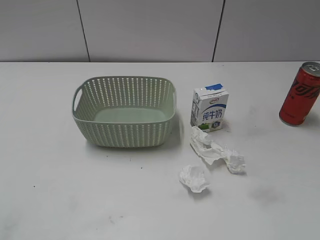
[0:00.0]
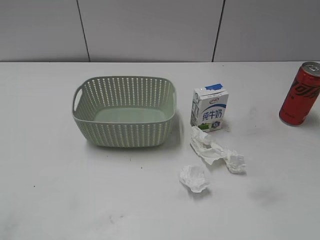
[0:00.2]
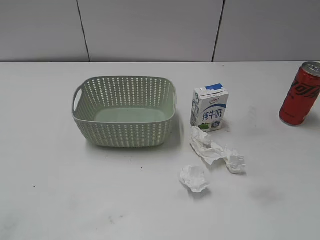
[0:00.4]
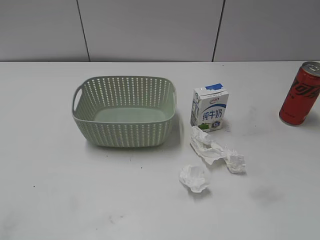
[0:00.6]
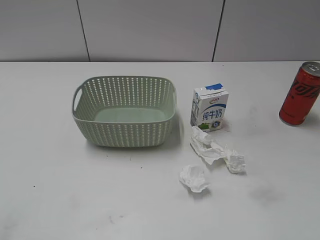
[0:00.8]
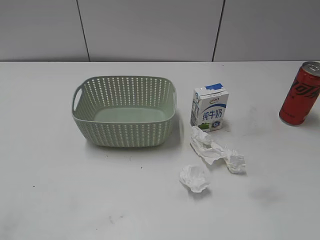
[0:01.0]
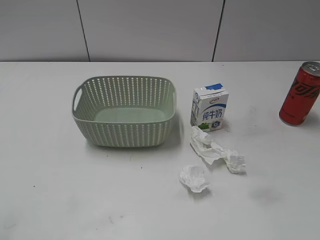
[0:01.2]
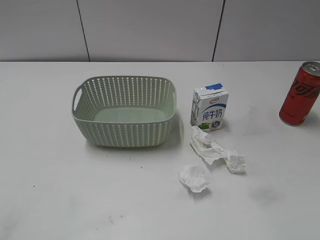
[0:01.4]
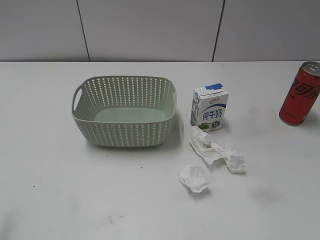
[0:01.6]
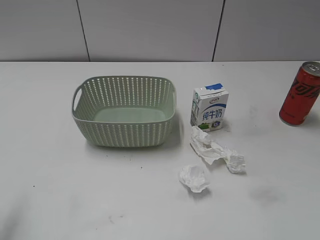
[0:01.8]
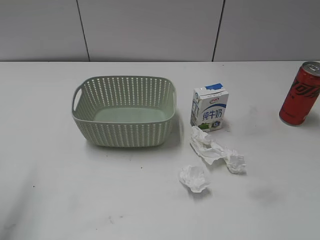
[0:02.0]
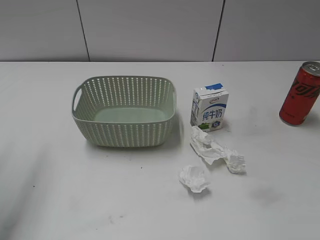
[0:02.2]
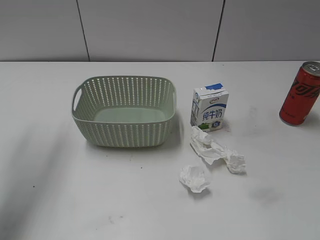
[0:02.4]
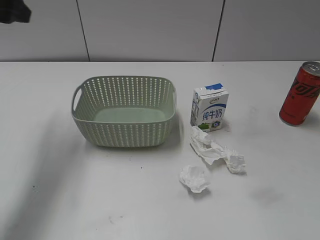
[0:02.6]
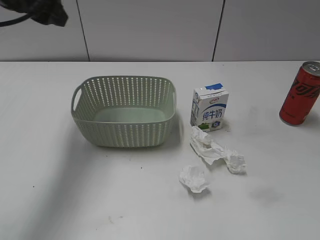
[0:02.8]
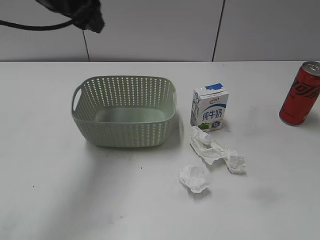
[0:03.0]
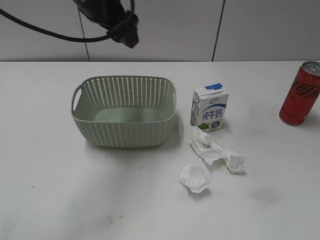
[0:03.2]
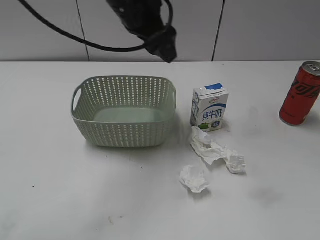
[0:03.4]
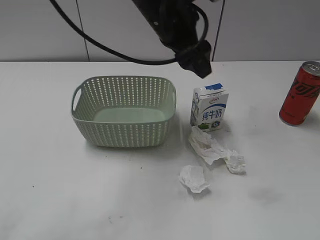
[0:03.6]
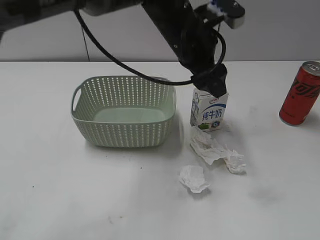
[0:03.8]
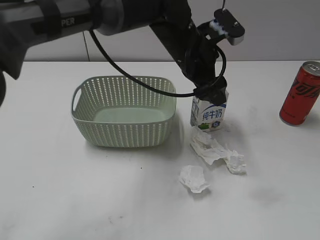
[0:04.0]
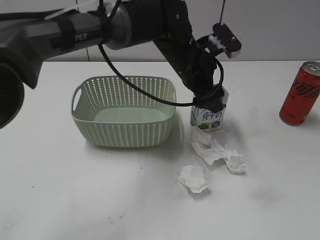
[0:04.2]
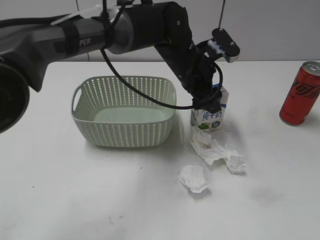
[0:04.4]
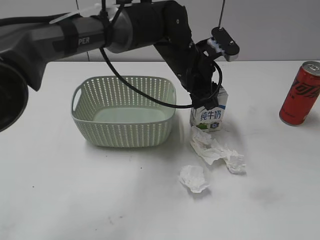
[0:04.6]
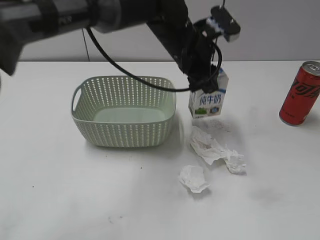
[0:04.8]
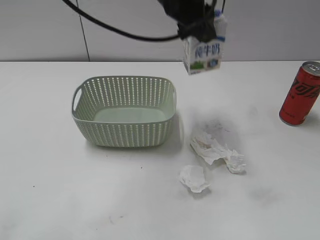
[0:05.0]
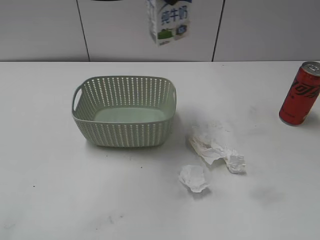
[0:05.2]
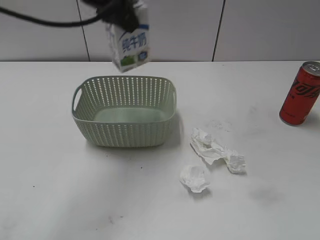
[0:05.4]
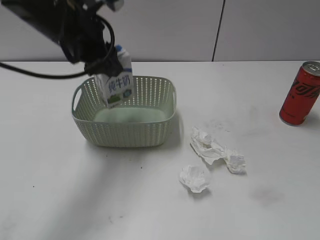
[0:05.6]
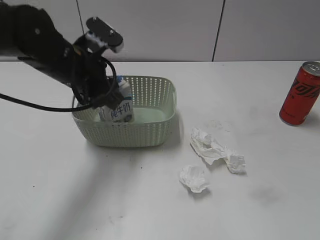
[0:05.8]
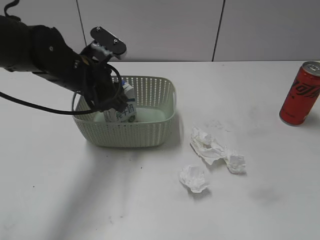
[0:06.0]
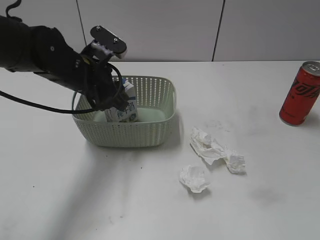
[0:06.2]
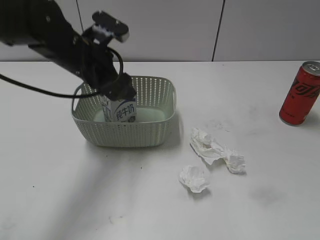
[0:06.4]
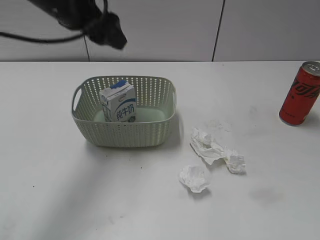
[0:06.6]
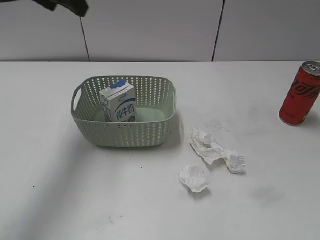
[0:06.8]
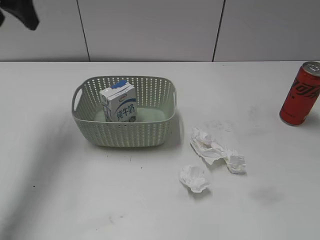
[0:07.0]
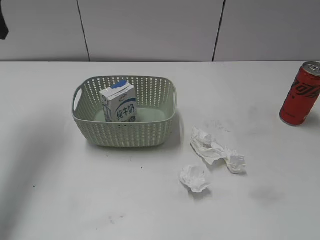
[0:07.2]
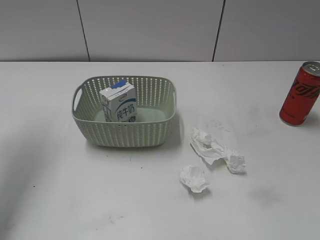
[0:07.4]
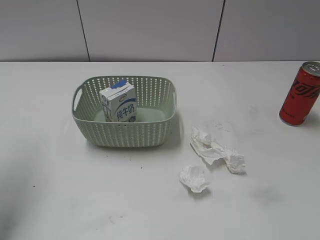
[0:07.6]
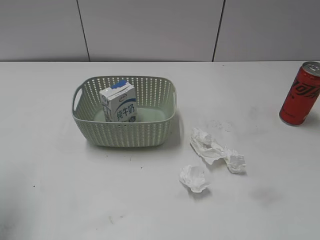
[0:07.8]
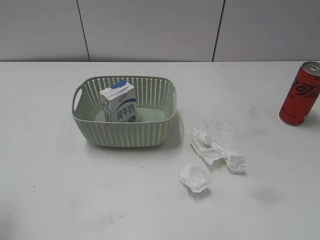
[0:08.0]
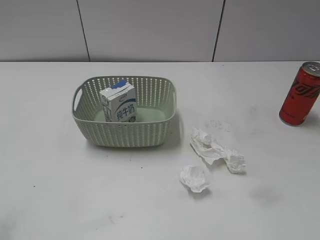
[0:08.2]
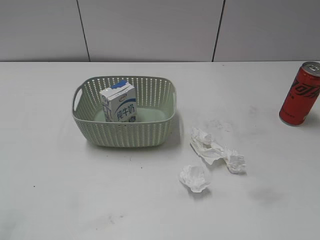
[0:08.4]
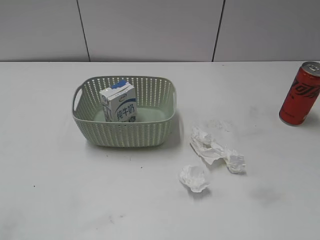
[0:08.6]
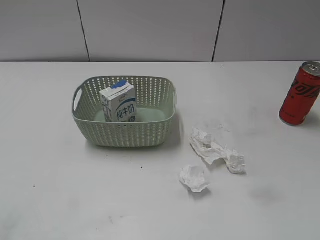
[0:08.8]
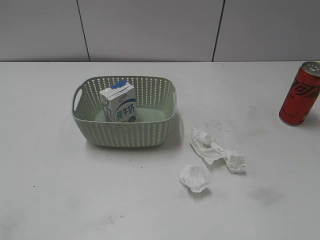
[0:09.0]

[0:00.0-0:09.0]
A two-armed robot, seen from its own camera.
Step, 0:02.6 to 0:04.6: Grasp the milk with left gripper.
Step, 0:04.8 to 0:06.6: Place the milk in the basket with left gripper.
0:01.6 to 0:03.0: The left gripper heads forward and to the right, covering some 35 cm.
0:03.0 to 0:04.4: The left gripper travels to the right and downward by about 25 cm.
0:04.4 to 0:06.0: The left gripper goes roughly 20 cm to the left, moves about 20 cm upward and comes back, and closes its fingers.
0:06.0 to 0:07.6: The left gripper shifts about 25 cm to the left and upward, and opens its fingers.
0:07.6 to 0:09.0: The left gripper shifts about 25 cm backward.

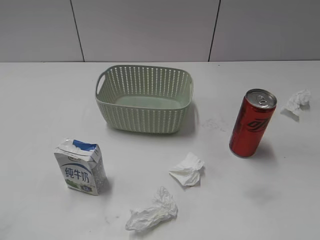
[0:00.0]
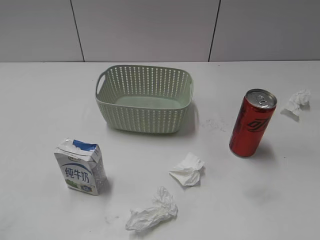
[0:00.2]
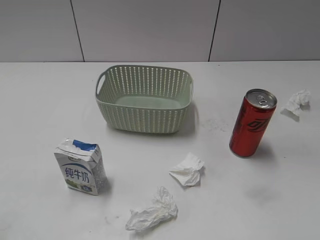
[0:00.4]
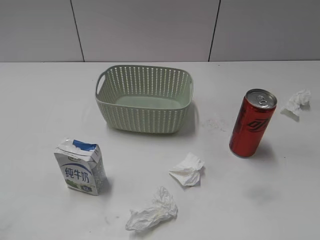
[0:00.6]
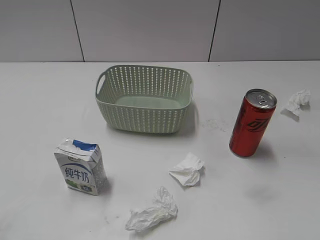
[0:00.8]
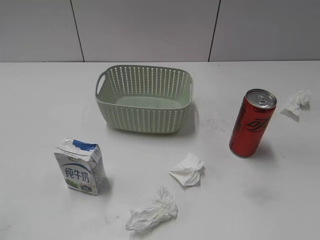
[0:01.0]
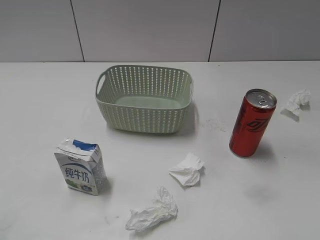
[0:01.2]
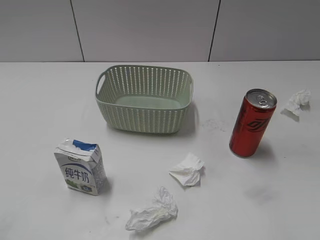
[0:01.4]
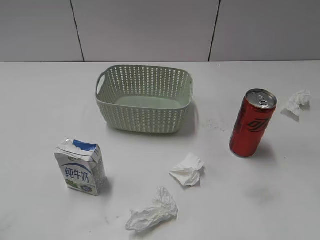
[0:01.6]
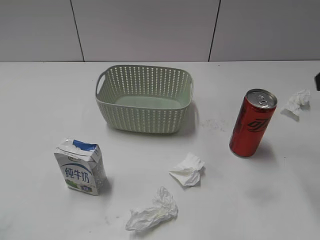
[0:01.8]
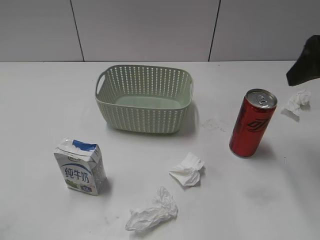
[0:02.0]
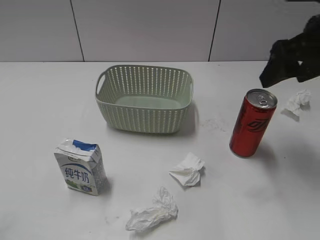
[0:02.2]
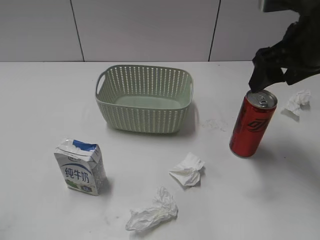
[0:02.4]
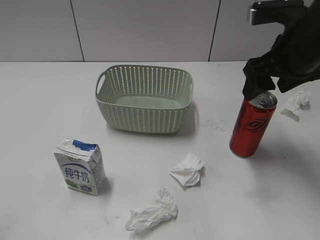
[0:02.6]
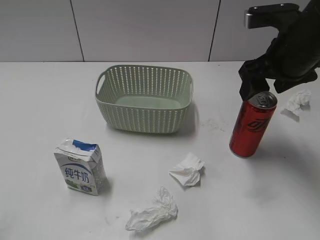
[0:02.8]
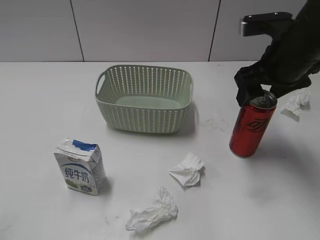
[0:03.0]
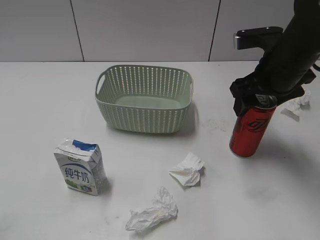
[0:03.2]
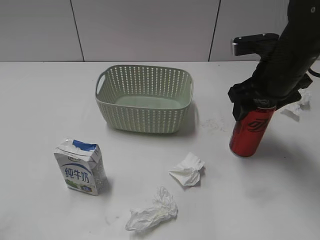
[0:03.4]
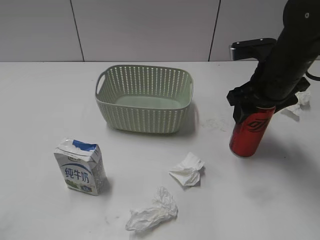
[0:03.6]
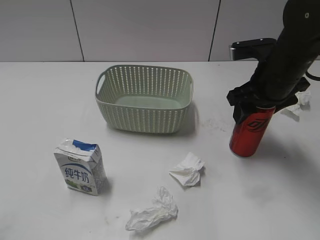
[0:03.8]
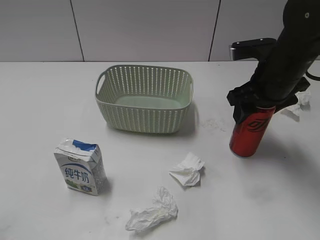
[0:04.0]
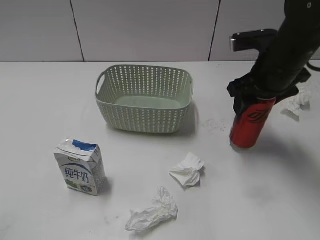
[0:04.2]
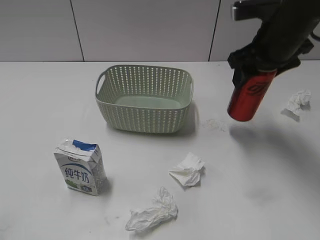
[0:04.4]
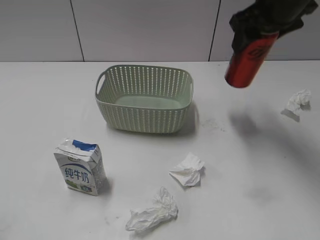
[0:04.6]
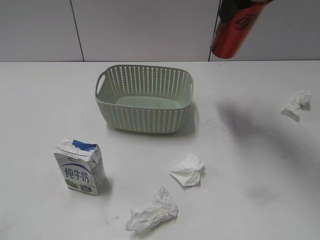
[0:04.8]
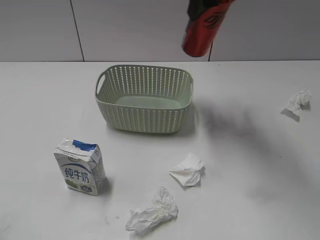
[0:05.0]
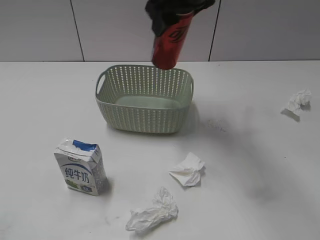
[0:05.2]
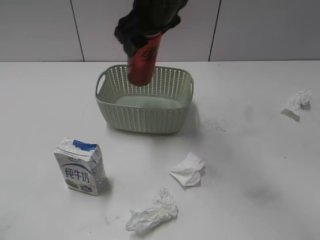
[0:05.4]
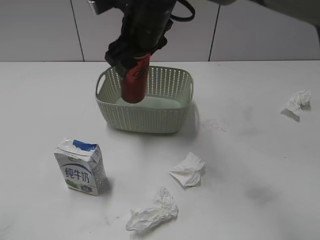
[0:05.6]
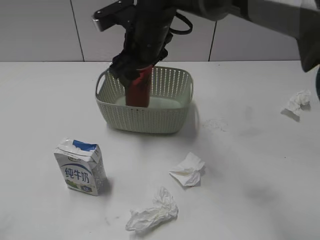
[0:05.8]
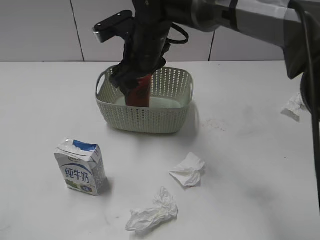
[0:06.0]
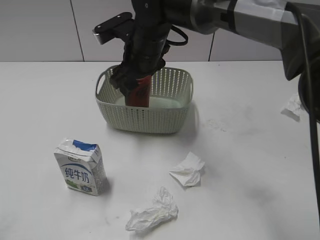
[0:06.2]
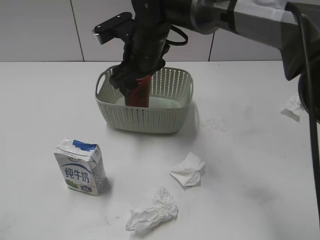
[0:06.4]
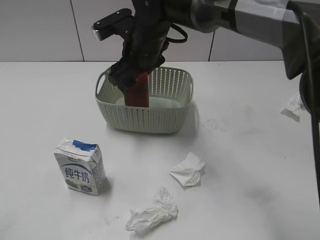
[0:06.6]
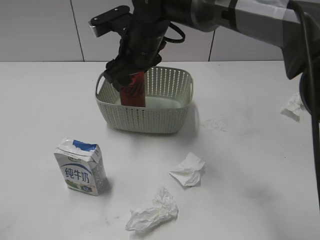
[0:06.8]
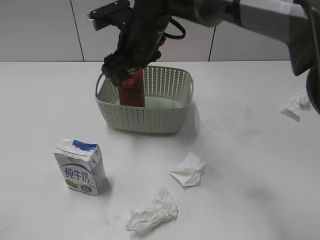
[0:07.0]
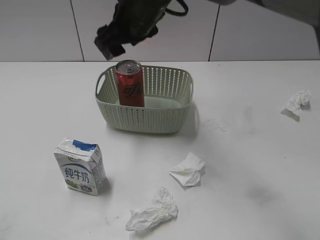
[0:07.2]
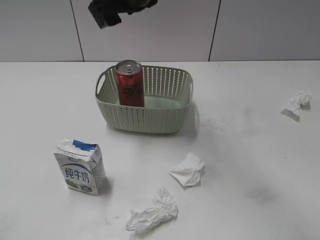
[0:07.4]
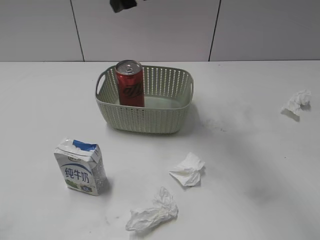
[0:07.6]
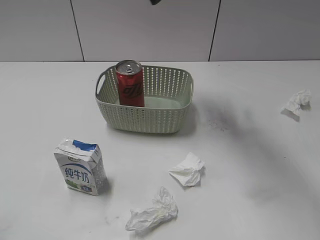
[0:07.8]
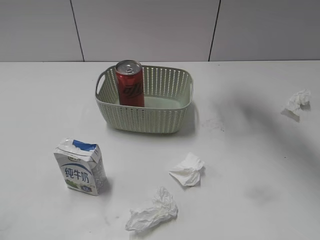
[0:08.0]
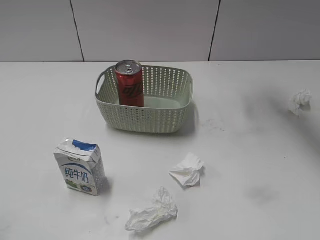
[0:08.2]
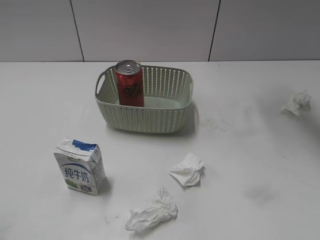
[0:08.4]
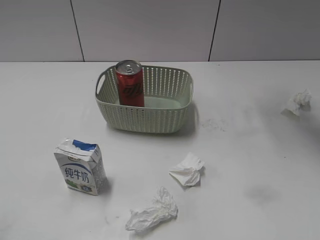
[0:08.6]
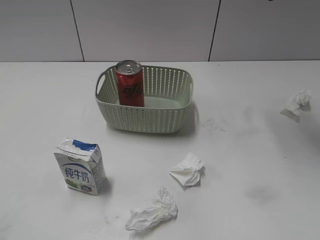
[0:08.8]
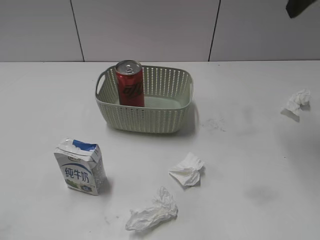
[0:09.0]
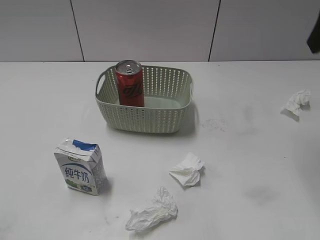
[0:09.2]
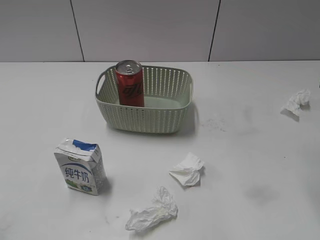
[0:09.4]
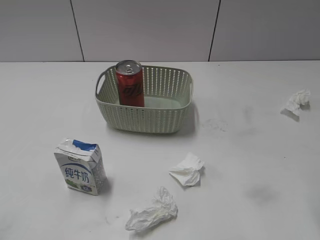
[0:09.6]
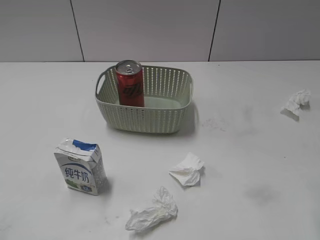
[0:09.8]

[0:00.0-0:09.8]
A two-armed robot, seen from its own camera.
Step, 0:01.8 to 0:03.8: Grasp the cola can with right gripper.
Step, 0:04.0 to 0:07.2: Place the cola can in the basket with right gripper.
0:01.4 to 0:02.8: The right gripper shifts approximately 25 cm forward and to the left.
0:02.8 to 0:04.2: There are only small adjustments of the grippers.
0:04.2 to 0:05.6: The right gripper shifts some 20 cm to the left.
0:05.6 to 0:07.0: The grippers stay close to where they were, moving slightly.
0:07.0 to 0:08.4: The right gripper heads to the right and upward, covering approximately 30 cm.
0:08.4 to 0:09.8: The right gripper heads backward and downward, covering roughly 25 cm.

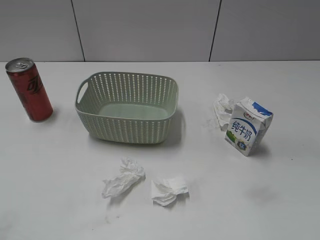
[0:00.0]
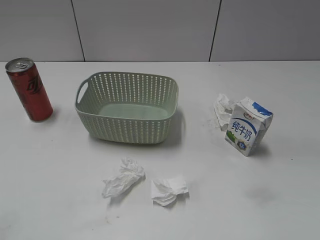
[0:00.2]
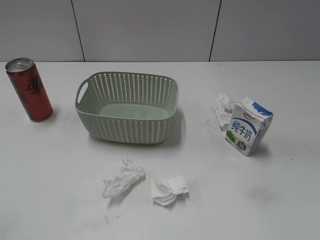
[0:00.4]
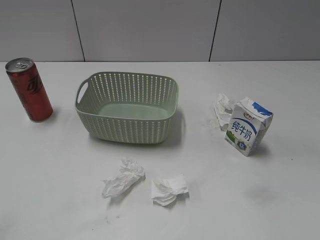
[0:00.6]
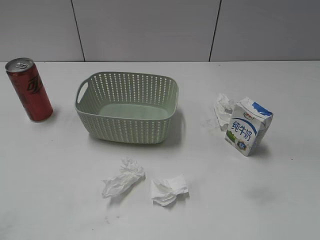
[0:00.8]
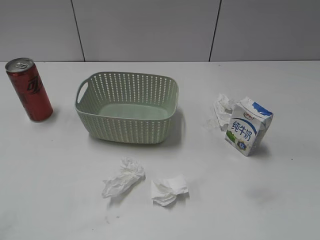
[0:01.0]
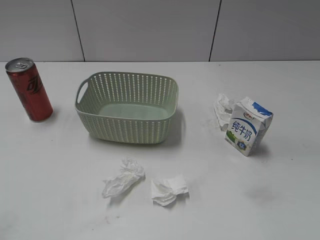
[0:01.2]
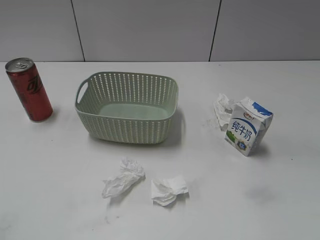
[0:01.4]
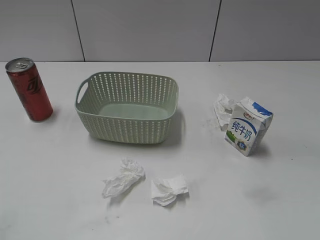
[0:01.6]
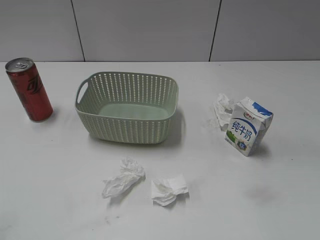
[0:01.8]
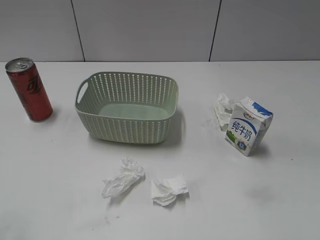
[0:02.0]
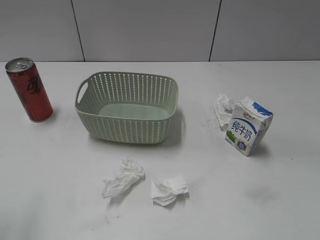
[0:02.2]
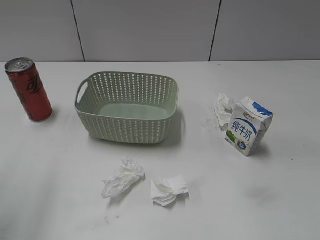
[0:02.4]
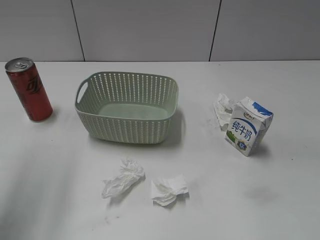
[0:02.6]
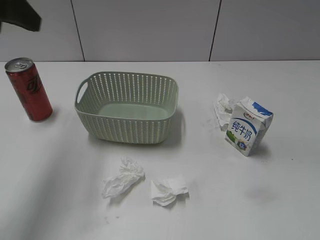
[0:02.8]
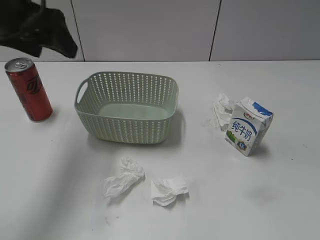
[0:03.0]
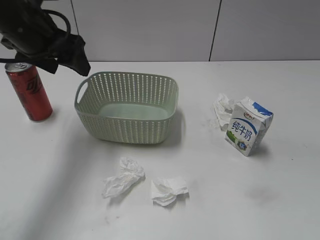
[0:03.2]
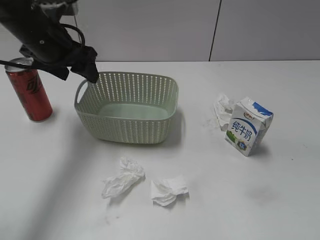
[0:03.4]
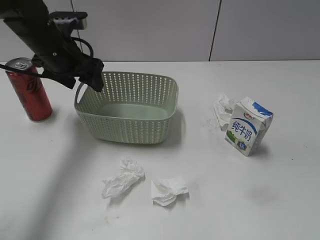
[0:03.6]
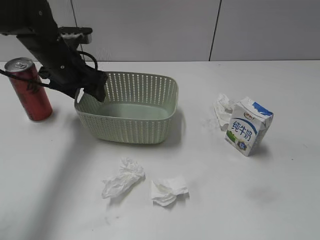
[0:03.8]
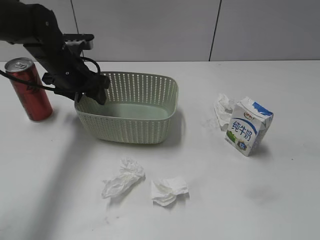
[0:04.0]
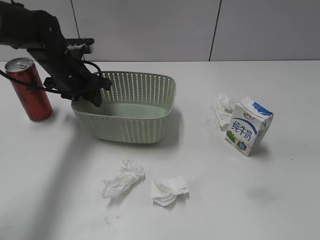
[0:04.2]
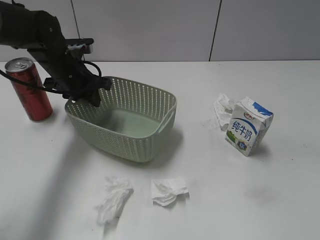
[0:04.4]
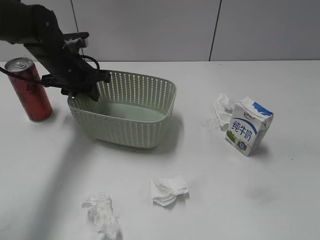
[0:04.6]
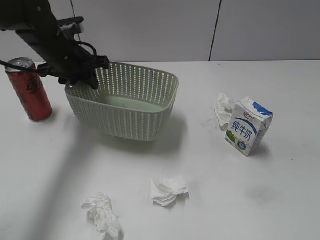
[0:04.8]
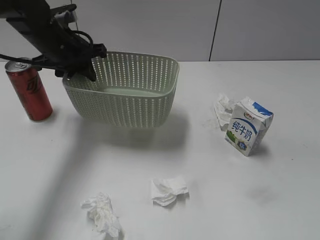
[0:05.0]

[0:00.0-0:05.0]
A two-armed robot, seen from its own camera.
Step, 0:02.8 to 0:04.4: Grasp the basket with left gripper.
0:01.6 to 0:03.4: The left gripper is displaced forward by about 35 cm, and opens.
0:03.4 to 0:05.0: The left gripper moves about 10 cm downward and comes back, and closes up.
